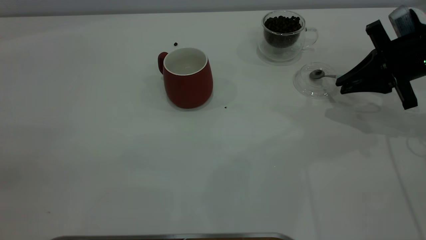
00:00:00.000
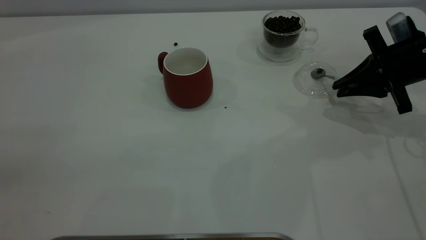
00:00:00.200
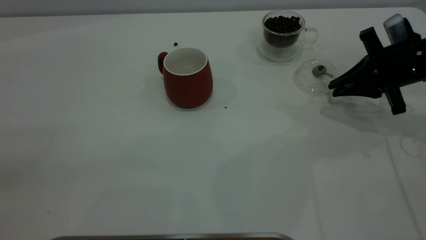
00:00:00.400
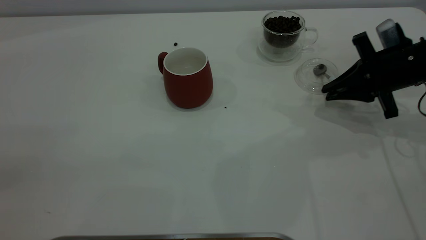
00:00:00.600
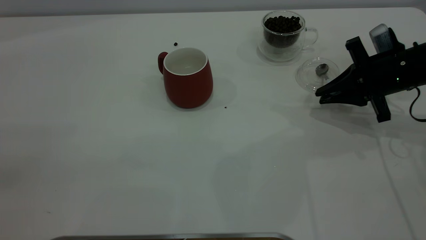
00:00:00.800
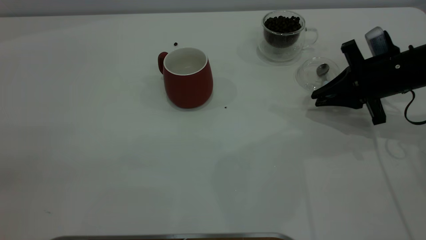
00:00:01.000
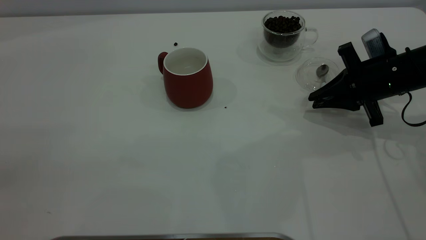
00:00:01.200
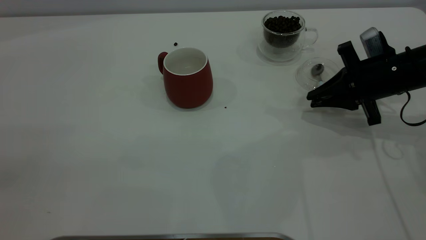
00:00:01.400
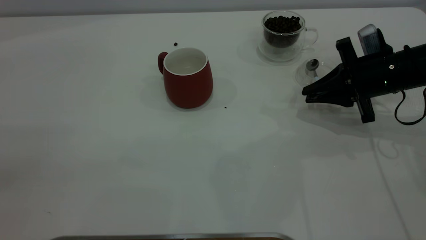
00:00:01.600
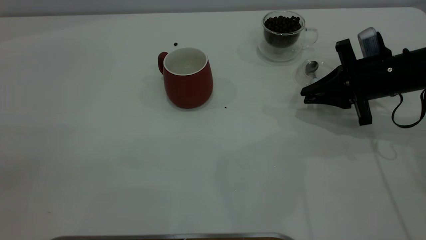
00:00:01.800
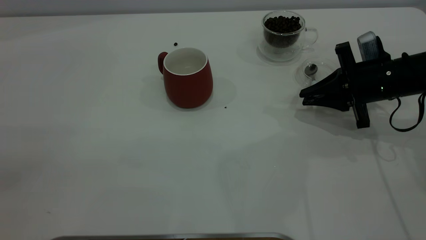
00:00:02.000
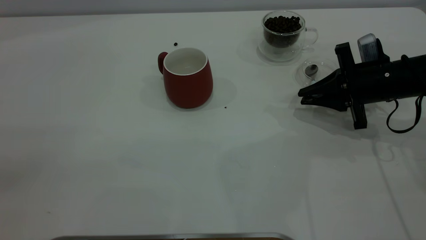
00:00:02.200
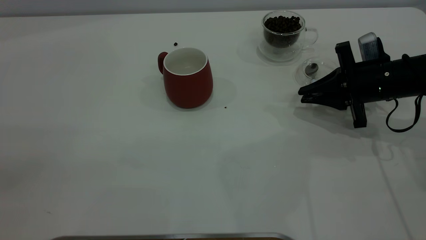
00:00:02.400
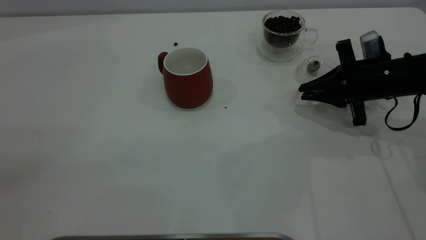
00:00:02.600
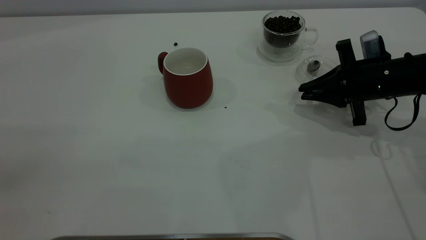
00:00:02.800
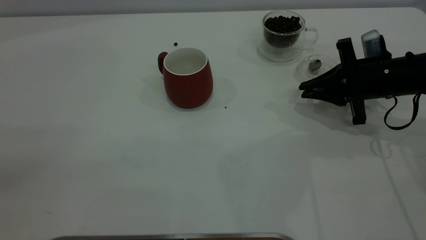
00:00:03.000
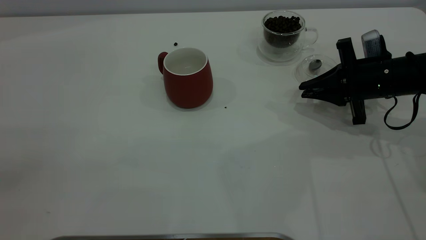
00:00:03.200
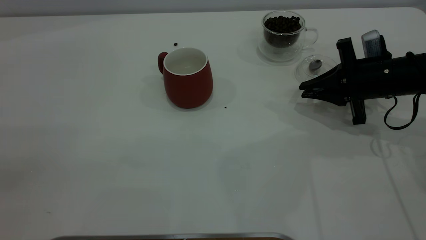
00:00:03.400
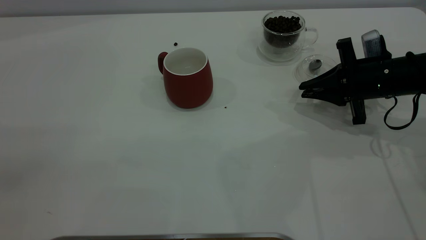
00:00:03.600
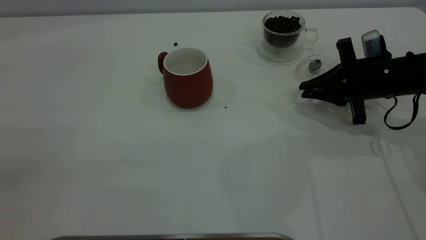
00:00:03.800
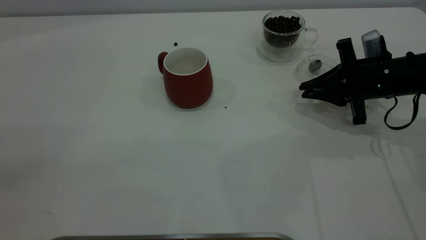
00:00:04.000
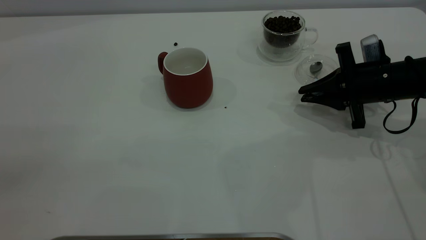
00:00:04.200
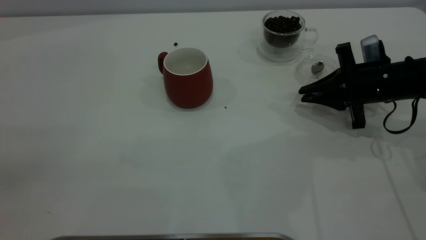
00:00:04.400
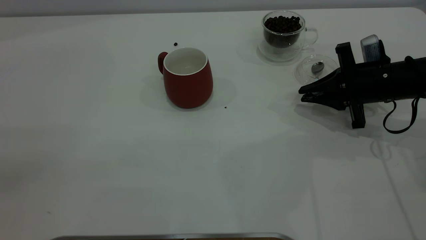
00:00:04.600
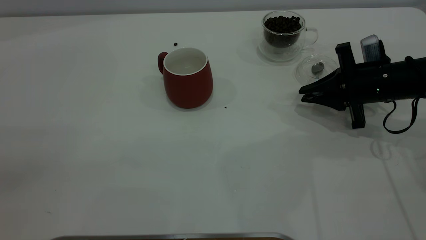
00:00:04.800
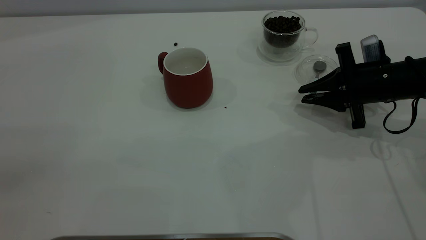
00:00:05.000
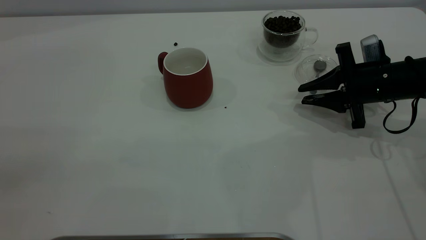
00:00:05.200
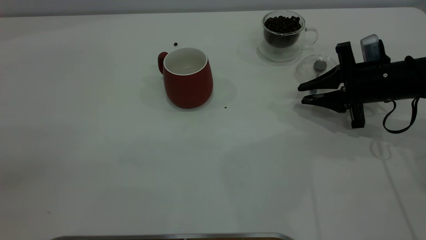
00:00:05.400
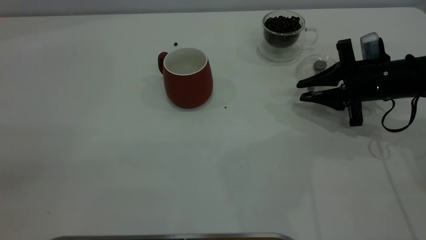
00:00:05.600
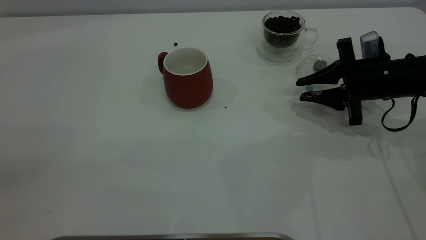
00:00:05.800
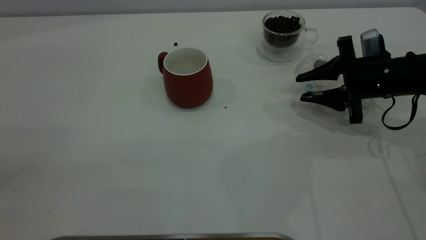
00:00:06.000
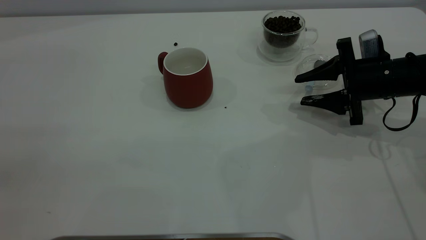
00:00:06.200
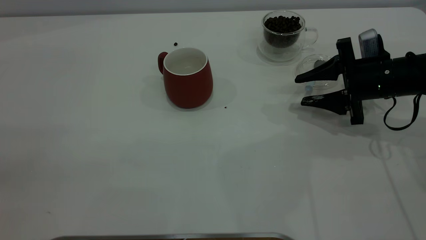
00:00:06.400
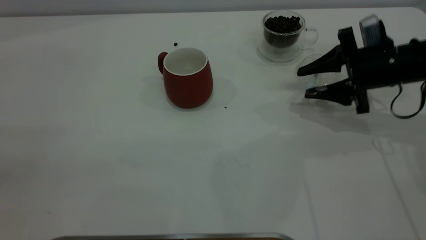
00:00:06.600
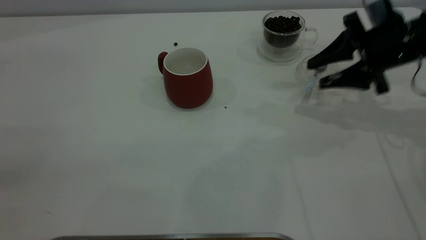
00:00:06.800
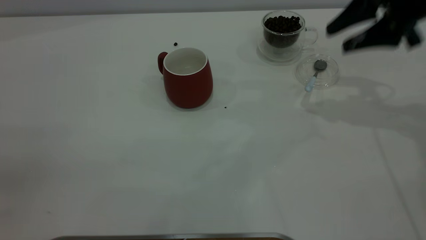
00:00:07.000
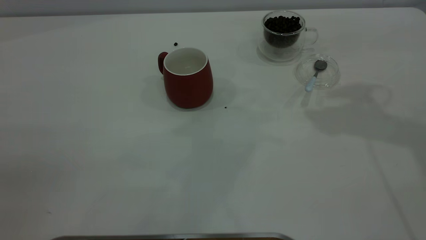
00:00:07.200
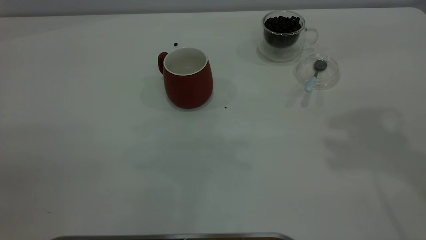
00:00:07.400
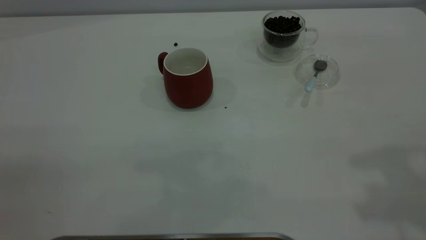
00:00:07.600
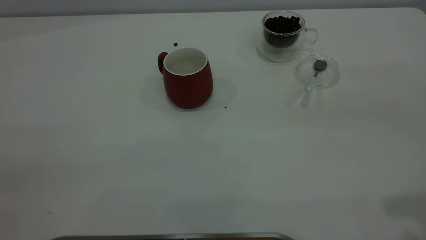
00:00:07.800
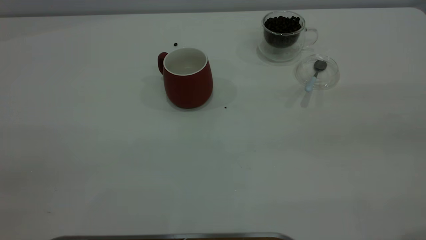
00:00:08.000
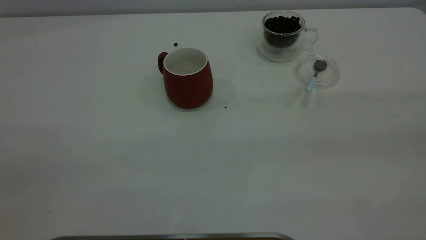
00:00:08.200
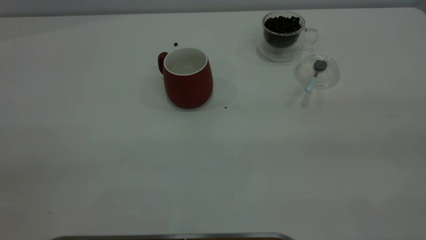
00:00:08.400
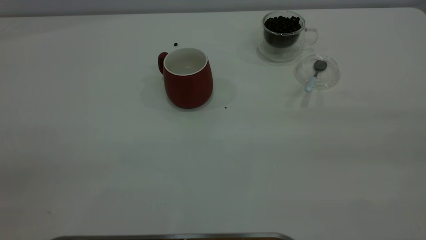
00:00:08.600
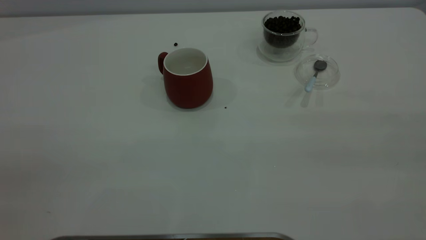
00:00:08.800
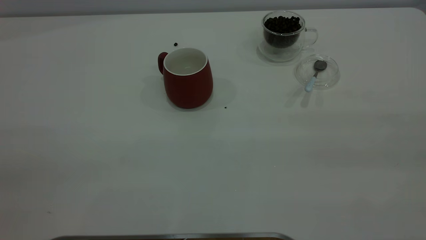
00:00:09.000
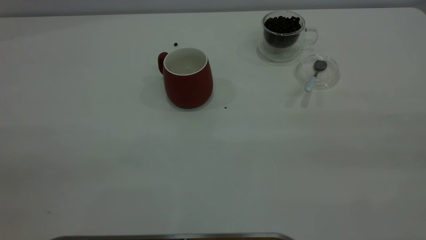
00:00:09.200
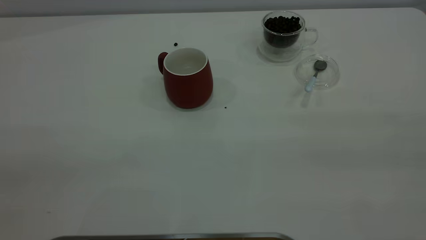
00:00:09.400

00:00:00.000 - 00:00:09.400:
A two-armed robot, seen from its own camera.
Task of the whole recording: the left gripper place the red cup in the center of the table, the right gripper take the blue spoon from the cup lid and scoop out the coffee beans from the coffee cup and put them into the red cup, the right gripper put the spoon back into the cup lid.
Step, 00:00:00.000 - 00:00:06.600: Place the spoon back in its original place.
00:00:00.000 - 00:00:01.600: The right gripper changes place by approximately 5 cm.
00:00:01.600 - 00:00:03.200: The grippers make only small movements.
00:00:03.200 - 00:00:04.800: Neither gripper changes place.
00:00:04.800 - 00:00:06.200: The right gripper opens up.
00:00:06.200 - 00:00:07.800: The right gripper moves upward and backward, roughly 40 cm.
